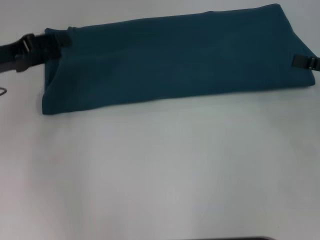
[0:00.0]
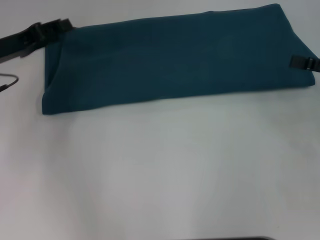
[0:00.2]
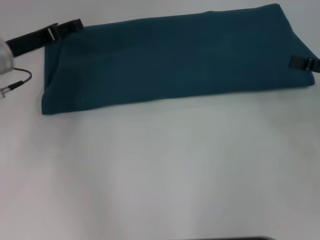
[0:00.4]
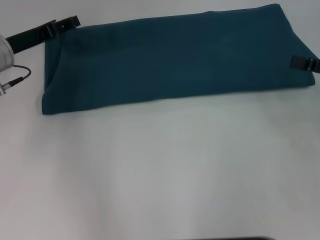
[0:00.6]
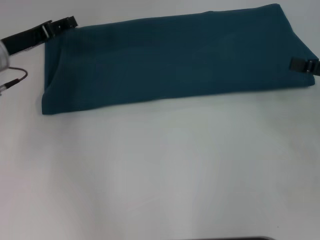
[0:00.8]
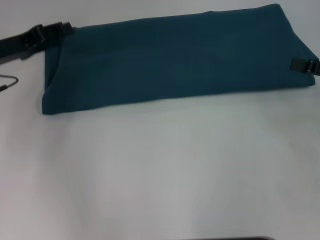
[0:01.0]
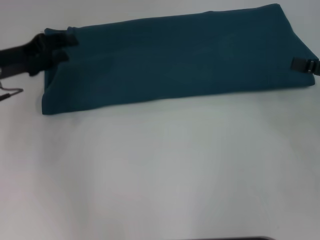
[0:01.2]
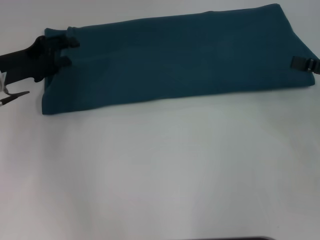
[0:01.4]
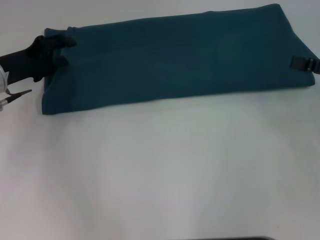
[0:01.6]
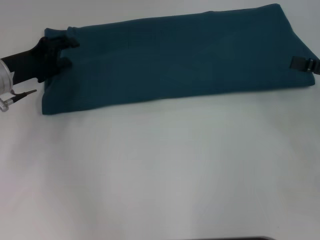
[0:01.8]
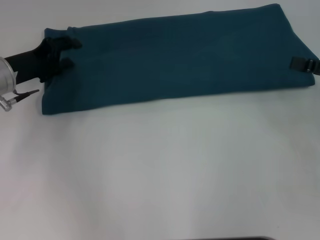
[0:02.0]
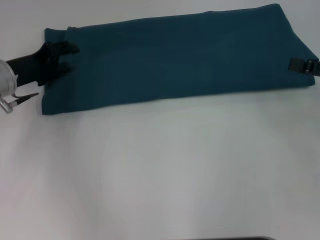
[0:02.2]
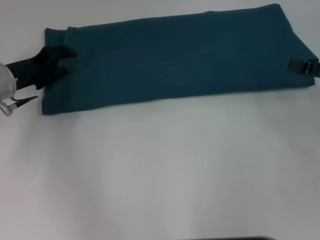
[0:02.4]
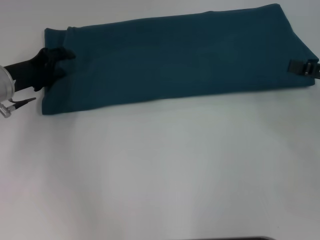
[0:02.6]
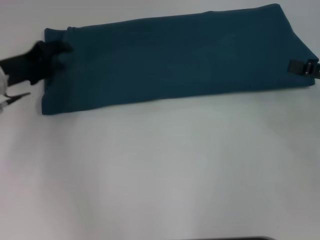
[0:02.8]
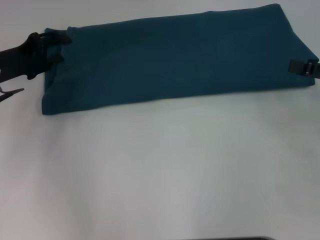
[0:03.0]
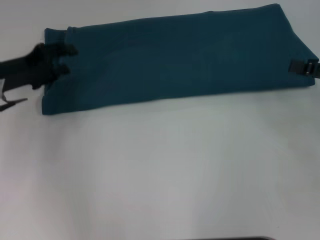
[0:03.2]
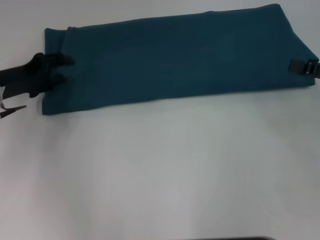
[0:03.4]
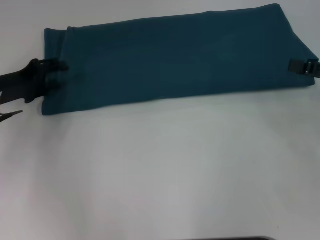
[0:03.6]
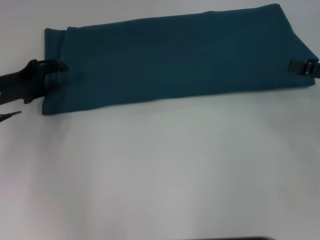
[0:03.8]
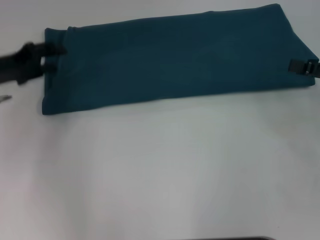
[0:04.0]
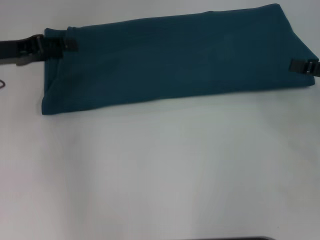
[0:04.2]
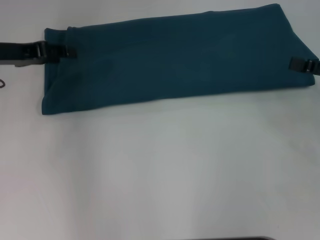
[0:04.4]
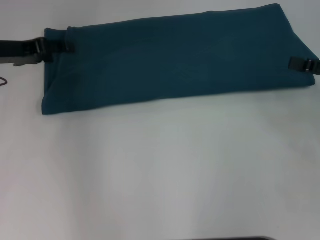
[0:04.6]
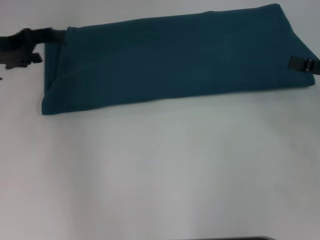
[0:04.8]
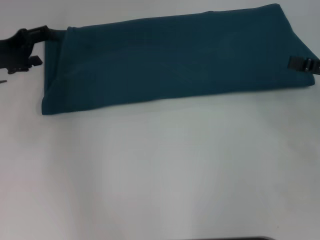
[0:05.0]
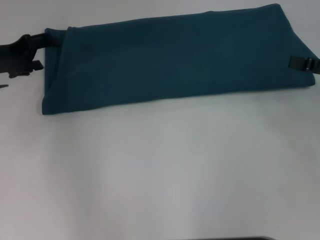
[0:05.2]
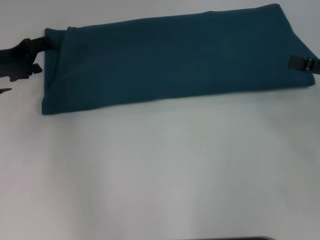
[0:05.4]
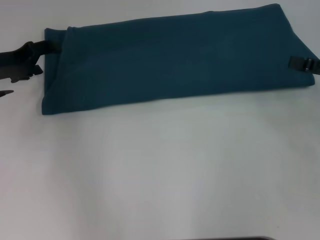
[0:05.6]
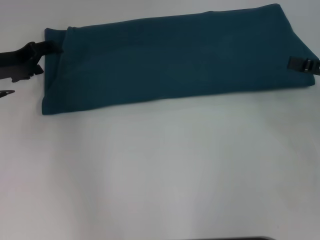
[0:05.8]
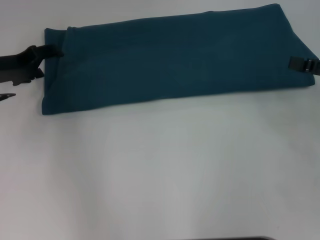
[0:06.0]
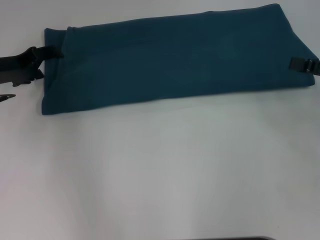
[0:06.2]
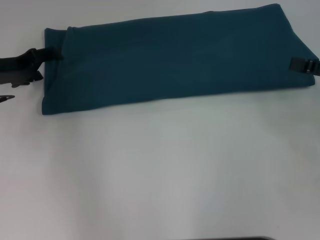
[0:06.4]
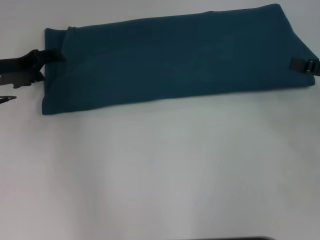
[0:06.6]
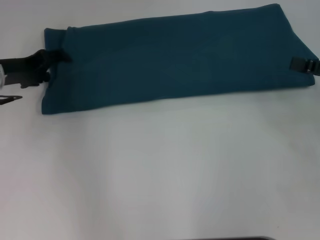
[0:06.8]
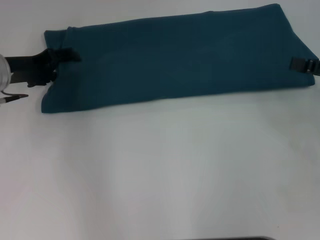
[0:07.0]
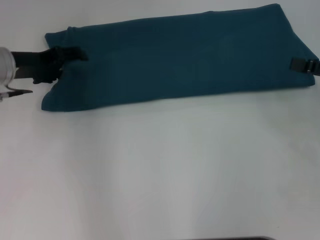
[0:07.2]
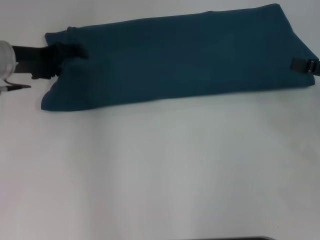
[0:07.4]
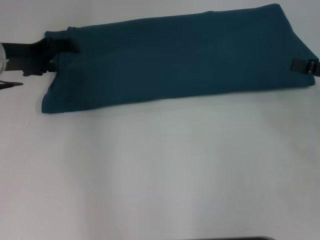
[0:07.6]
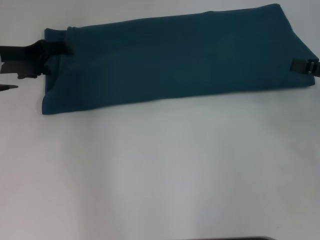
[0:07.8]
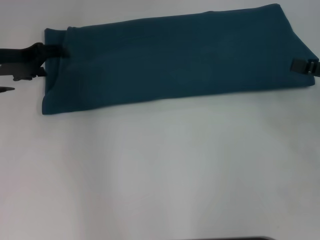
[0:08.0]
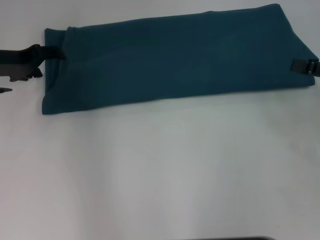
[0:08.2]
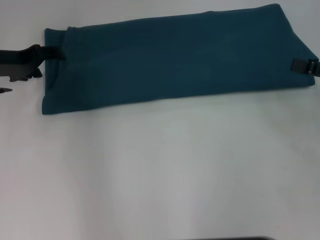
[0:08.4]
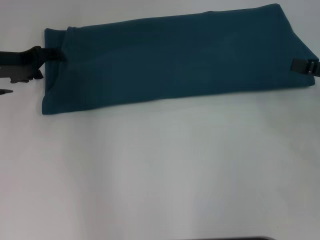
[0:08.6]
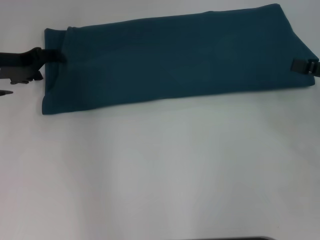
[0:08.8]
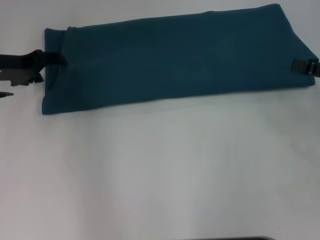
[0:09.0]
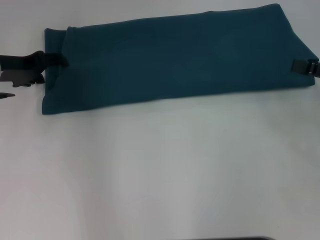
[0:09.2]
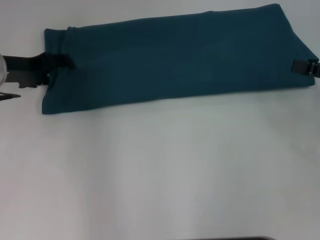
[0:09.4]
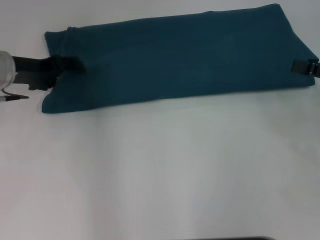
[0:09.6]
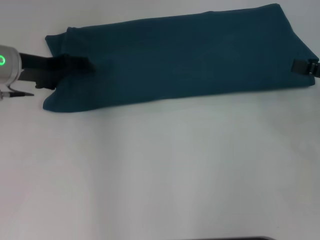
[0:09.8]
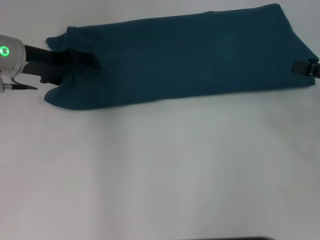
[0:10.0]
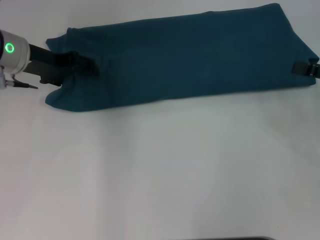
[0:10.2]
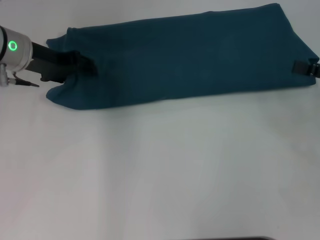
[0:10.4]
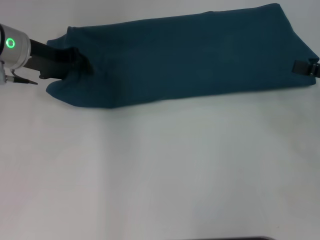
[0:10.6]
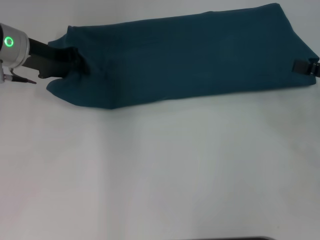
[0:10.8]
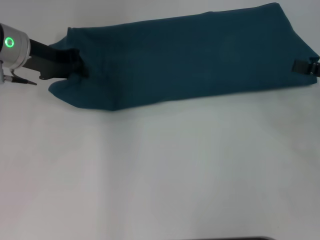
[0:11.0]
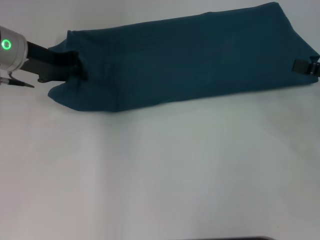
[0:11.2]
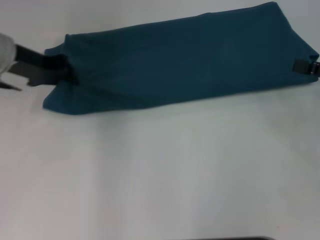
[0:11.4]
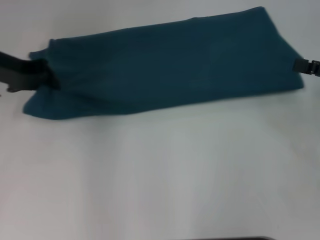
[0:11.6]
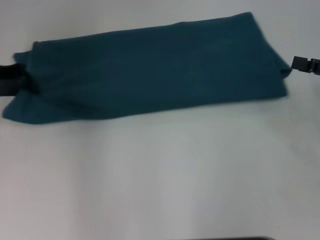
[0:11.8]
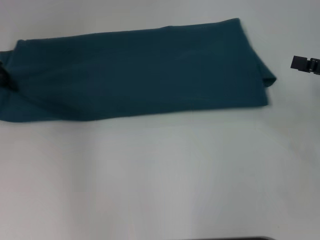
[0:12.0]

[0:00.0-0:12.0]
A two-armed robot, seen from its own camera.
0:01.6 to 0:03.0: There are only small adjustments of the grippers.
0:06.0 to 0:09.0: The grippers stay close to where they were, moving slightly.
0:09.0 to 0:10.4: The left gripper heads to the right, covering some 5 cm.
0:10.4 to 0:12.0: The left gripper moves to the left, roughly 10 cm, and closes its fingers.

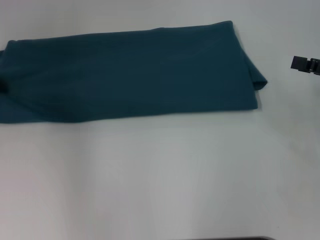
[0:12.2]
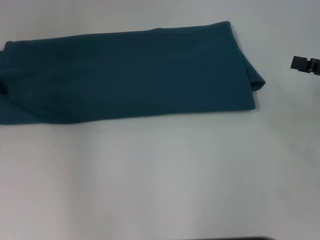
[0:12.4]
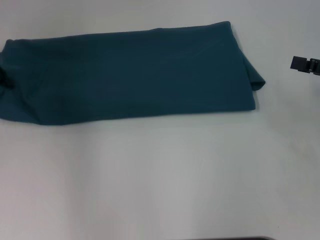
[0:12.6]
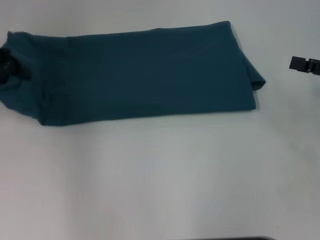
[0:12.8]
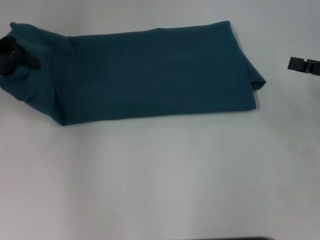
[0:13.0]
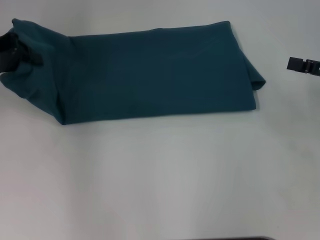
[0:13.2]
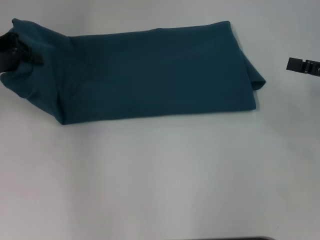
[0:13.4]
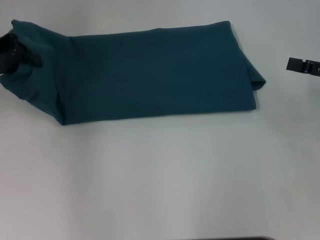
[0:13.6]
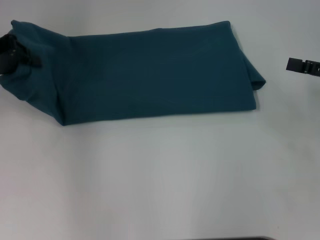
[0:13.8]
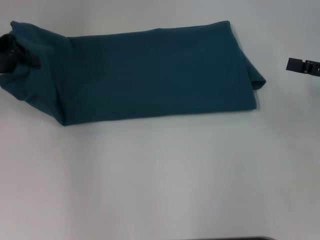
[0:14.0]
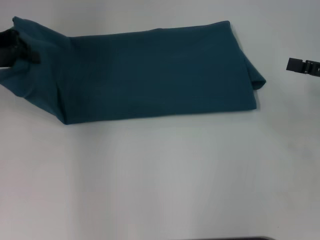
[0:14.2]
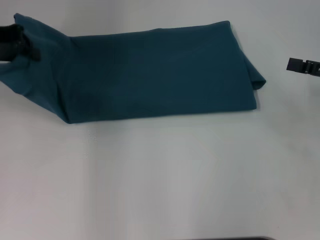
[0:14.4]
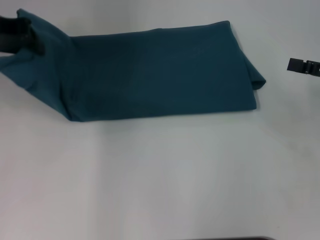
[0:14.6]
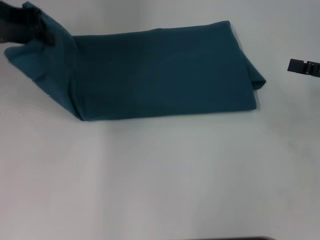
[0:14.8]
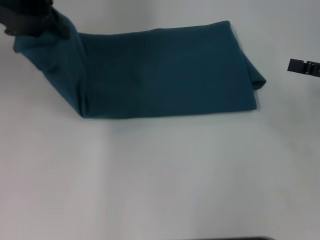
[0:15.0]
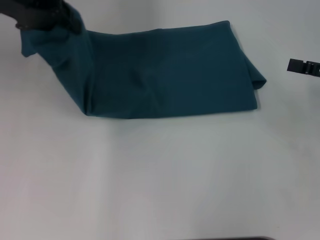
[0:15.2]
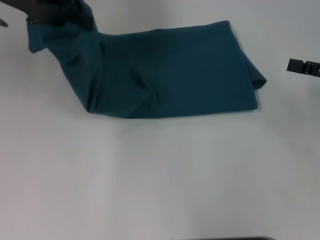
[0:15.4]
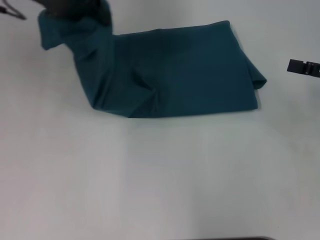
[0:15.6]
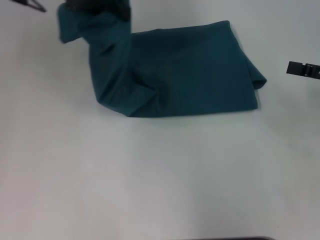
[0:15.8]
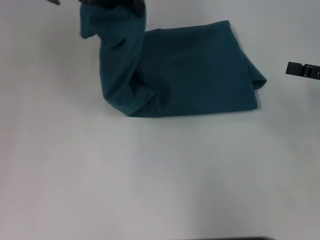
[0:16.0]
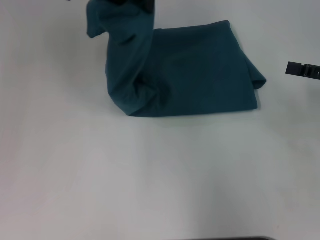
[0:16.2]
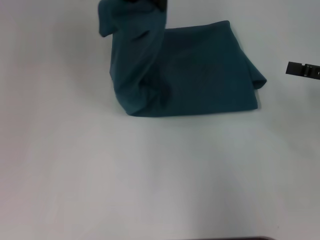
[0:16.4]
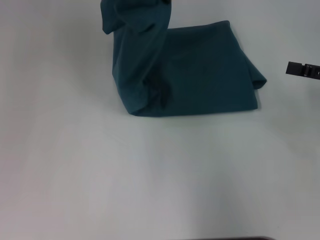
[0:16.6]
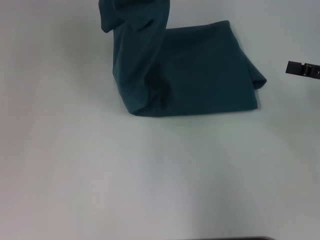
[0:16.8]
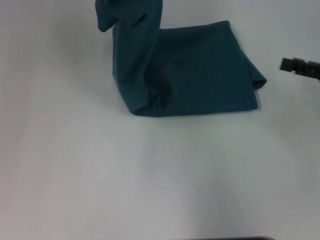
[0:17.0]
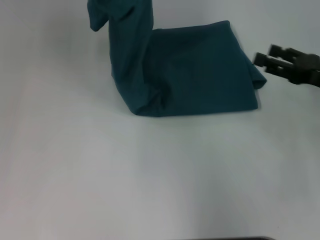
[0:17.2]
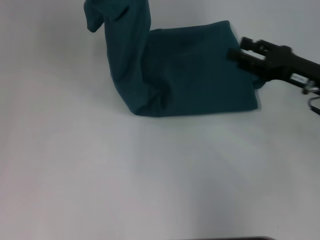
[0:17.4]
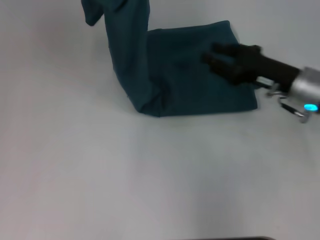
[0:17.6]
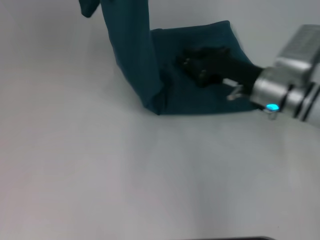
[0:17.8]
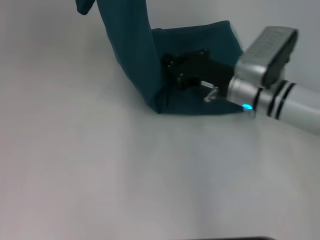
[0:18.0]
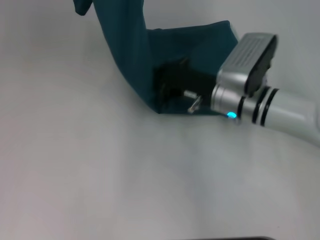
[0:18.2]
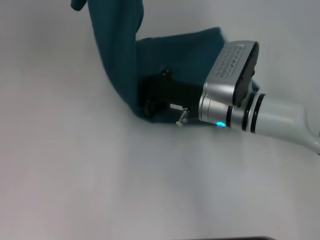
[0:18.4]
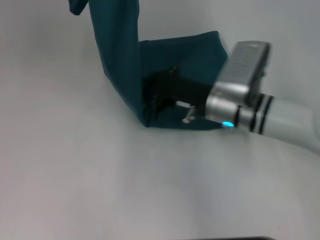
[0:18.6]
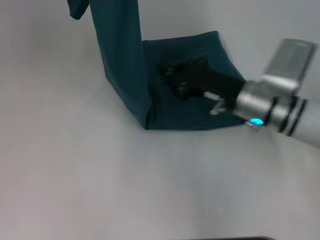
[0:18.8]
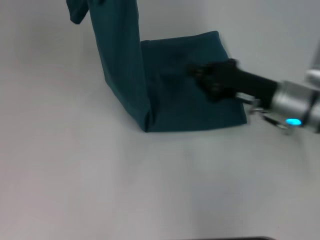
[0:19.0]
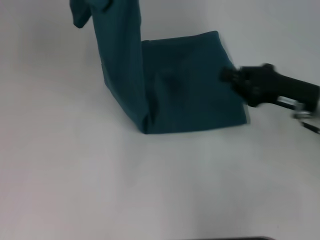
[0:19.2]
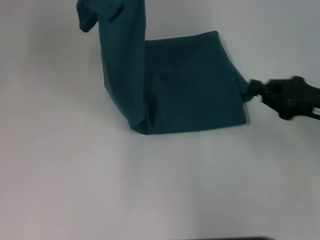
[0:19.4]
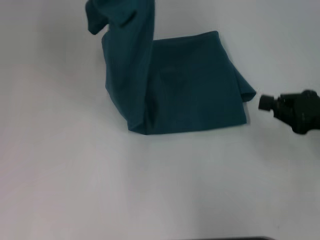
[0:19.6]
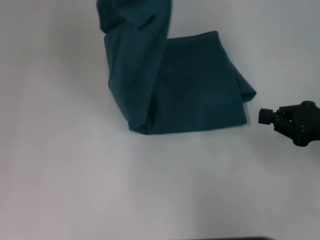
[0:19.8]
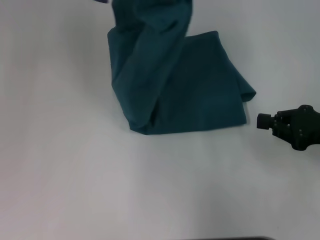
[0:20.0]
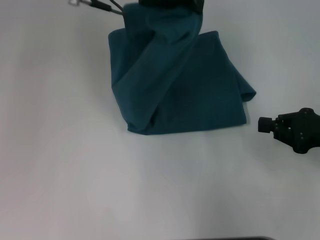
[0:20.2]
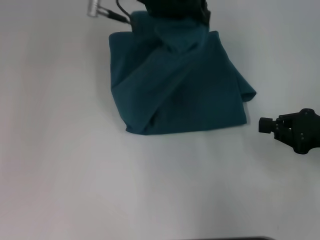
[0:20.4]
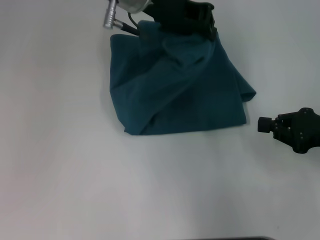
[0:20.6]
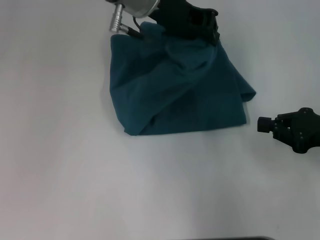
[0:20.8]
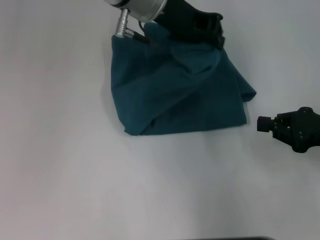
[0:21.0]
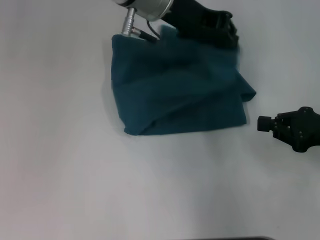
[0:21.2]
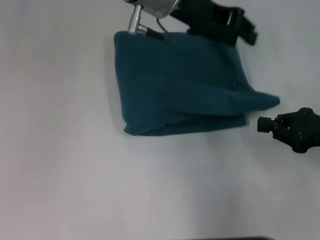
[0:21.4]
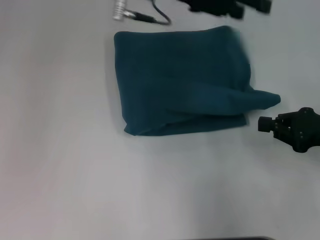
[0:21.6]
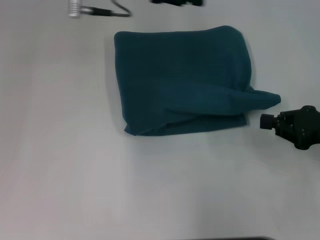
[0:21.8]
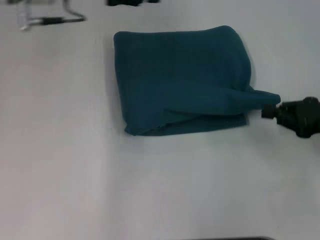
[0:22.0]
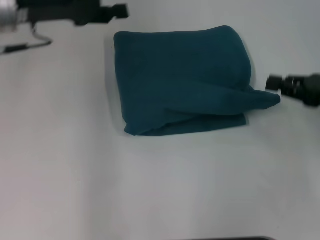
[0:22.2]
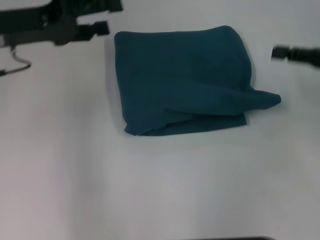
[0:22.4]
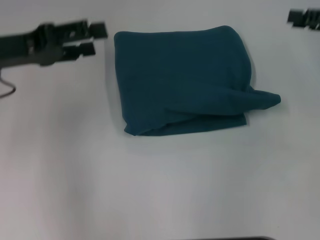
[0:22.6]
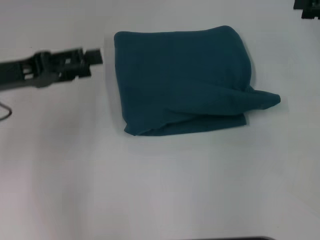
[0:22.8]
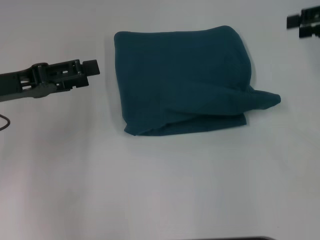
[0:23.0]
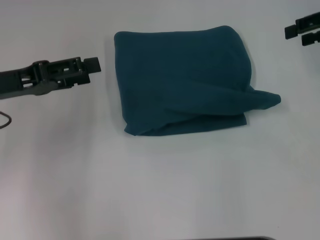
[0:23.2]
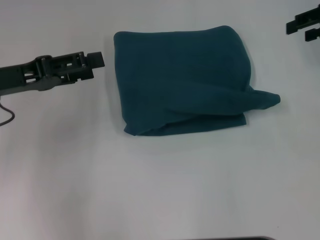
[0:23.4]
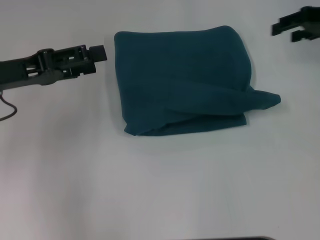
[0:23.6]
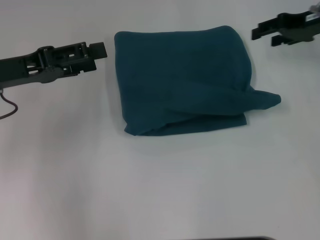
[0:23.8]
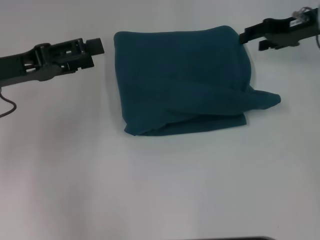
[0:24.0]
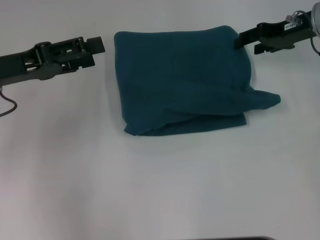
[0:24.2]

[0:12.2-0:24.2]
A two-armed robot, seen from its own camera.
Step, 0:12.2 to 0:18.4: Press the middle of the clothes with your right hand.
Step, 0:18.6 to 0:21.6: Fold the clothes to the left.
0:12.2 to 0:13.8: The grippers stay close to where they were, moving slightly.
0:13.8 to 0:15.2: The left gripper goes about 10 cm to the right and upward.
0:15.2 to 0:16.6: The left gripper travels to the right by about 10 cm.
0:16.6 to 0:18.2: The right gripper shifts roughly 25 cm to the left, and closes up; the left gripper heads to the left, covering about 5 cm.
0:18.2 to 0:19.8: The right gripper goes some 20 cm to the right and backward. The left gripper is displaced to the right by some 5 cm.
0:19.8 to 0:21.2: The left gripper moves to the right and downward, about 10 cm.
0:21.2 to 0:22.6: The left gripper shifts approximately 25 cm to the left, and opens its fingers. Meanwhile the right gripper moves forward and upward, some 15 cm.
0:22.6 to 0:24.2: The right gripper heads to the left and forward, covering about 15 cm, and opens.
